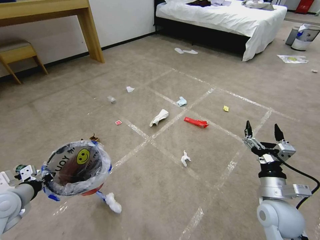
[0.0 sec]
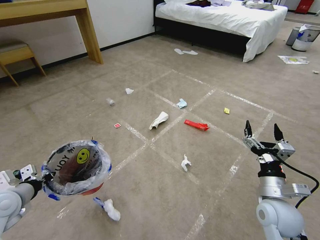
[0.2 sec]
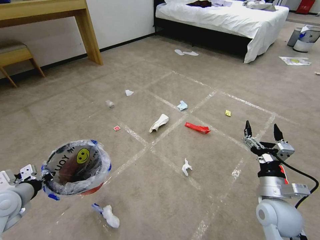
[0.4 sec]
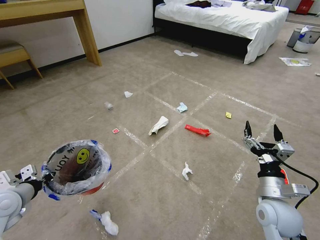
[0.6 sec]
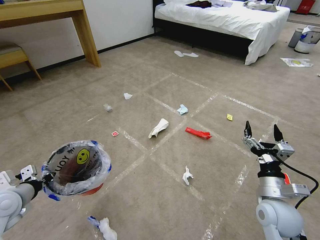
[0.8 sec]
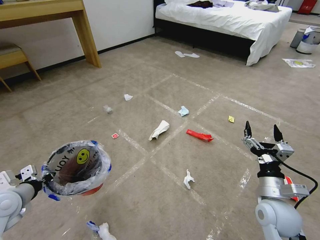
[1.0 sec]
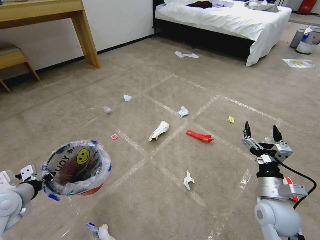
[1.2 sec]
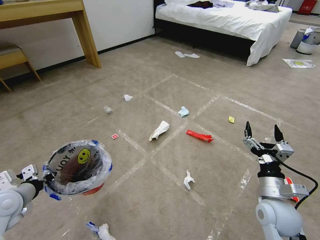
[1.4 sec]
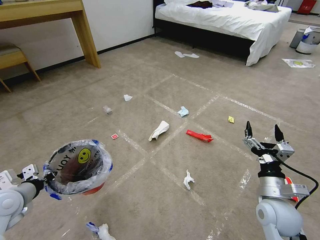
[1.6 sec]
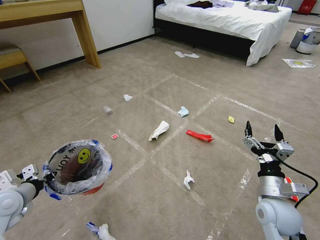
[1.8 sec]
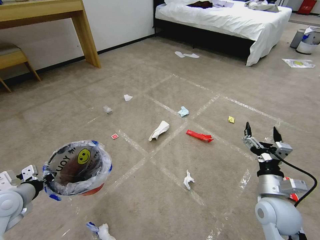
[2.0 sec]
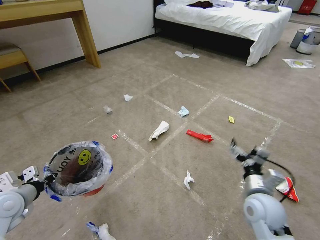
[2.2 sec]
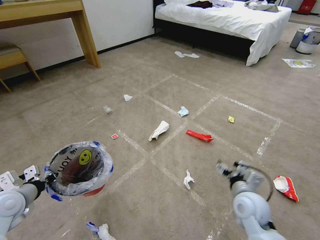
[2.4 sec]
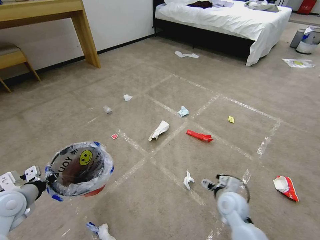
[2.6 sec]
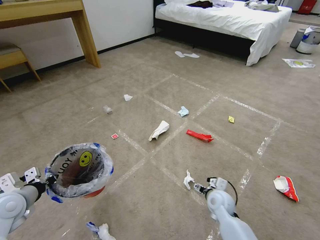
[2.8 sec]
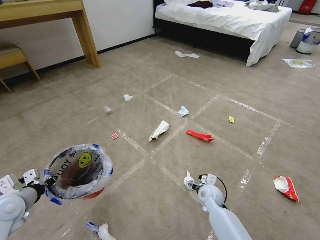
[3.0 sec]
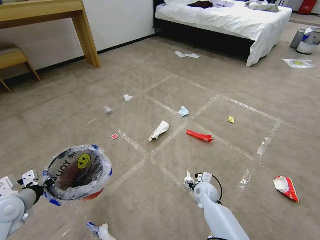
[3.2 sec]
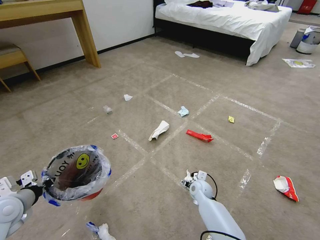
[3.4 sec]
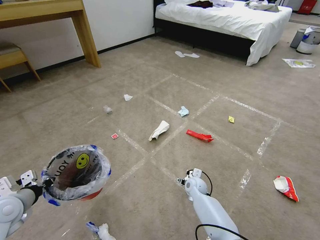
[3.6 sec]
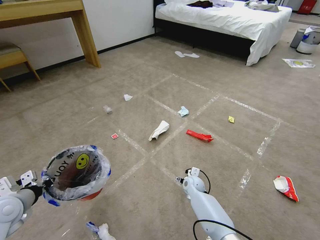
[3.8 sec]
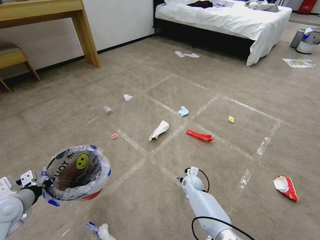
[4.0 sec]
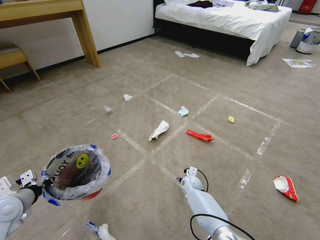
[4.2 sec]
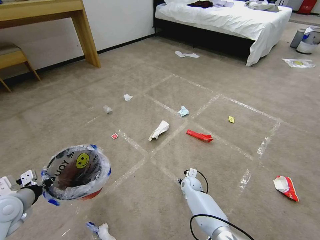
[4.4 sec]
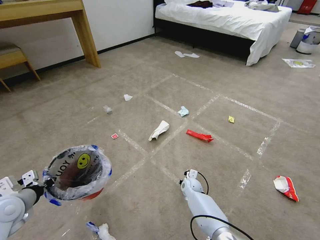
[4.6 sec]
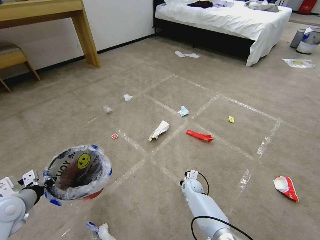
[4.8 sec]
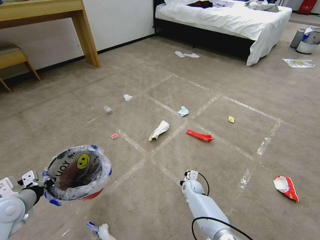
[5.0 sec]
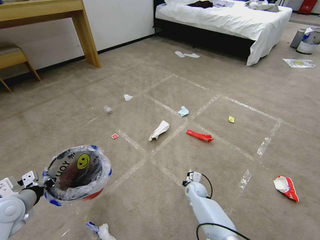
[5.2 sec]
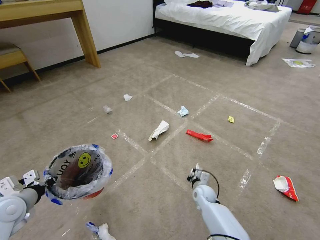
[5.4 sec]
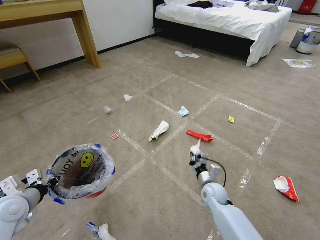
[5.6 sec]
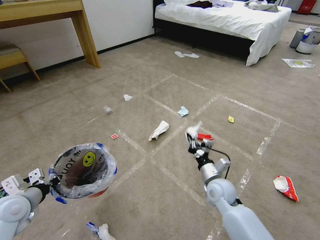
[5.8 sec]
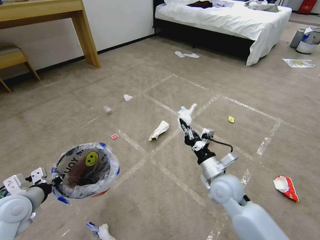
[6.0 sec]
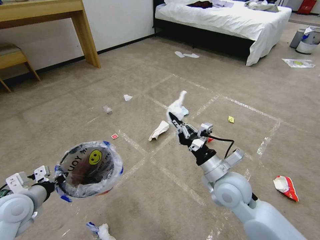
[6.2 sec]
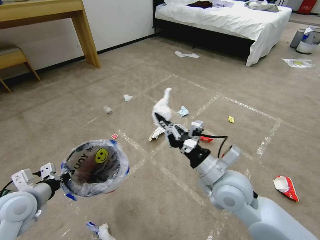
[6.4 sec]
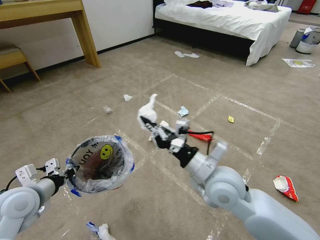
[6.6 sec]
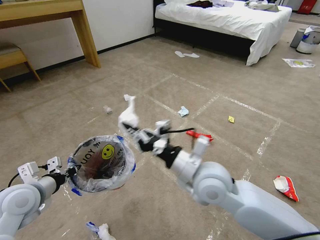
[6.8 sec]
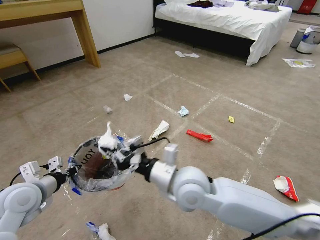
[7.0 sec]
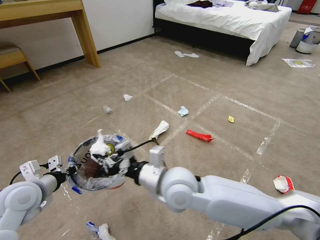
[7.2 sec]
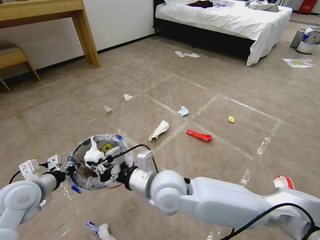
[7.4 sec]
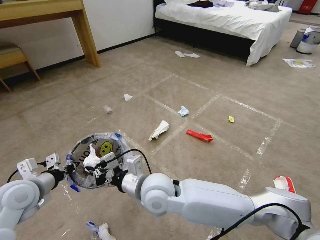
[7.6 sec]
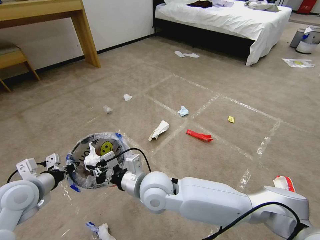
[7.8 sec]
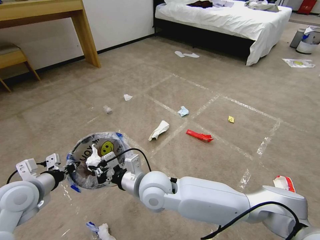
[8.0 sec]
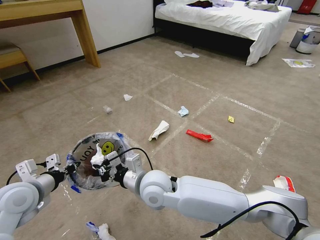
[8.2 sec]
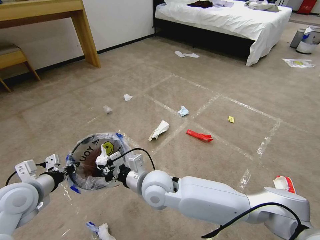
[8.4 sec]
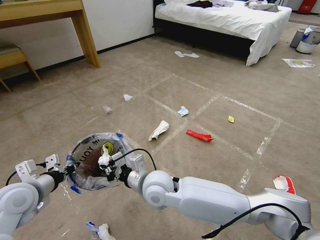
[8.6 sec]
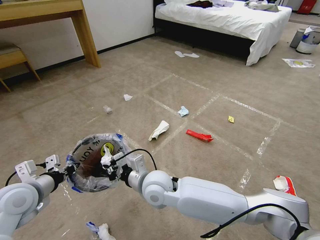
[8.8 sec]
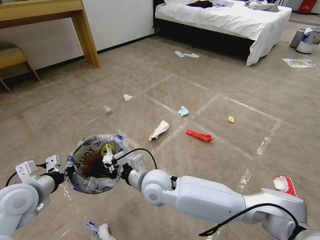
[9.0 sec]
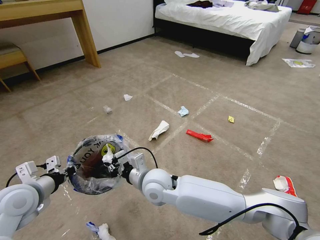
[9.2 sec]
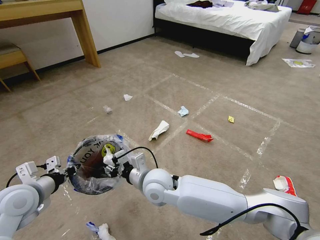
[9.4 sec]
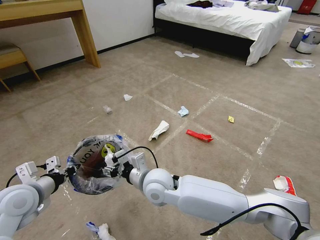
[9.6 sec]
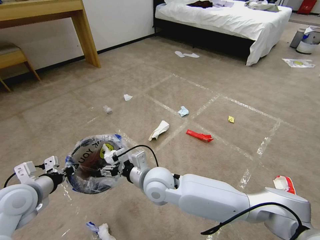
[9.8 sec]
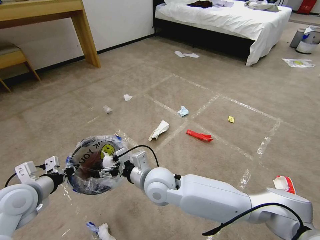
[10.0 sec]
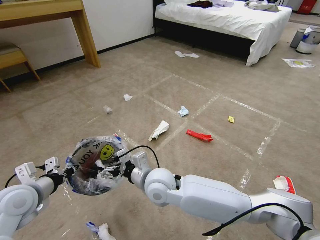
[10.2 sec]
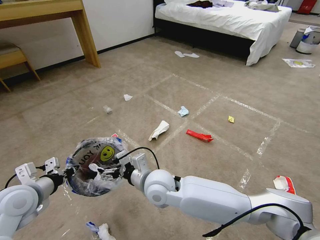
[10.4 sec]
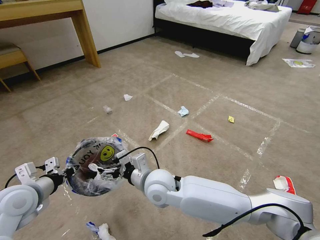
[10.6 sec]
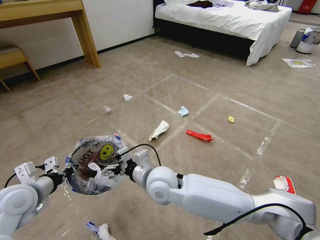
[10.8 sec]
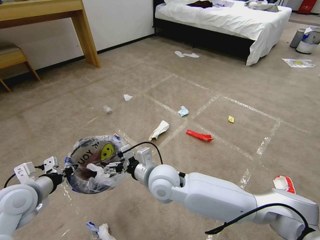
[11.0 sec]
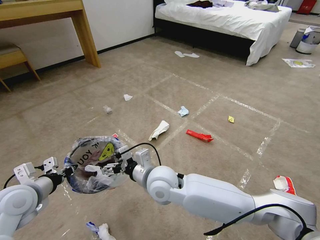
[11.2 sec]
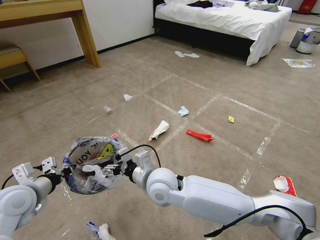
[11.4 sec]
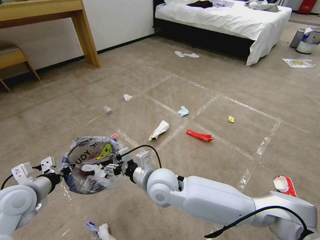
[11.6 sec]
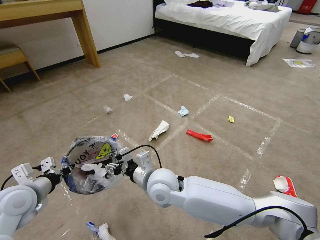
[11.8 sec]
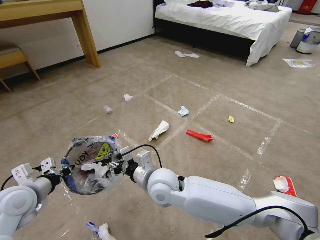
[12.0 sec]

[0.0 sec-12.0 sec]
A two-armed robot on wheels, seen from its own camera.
Task of the whole recording: Pick up the trash bin and place the garbage on the floor into it.
0.0 sec to 1.6 sec: The two grippers keep their place.
1.6 sec to 3.0 sec: The right gripper heads downward, to the left and forward, covering approximately 25 cm.
3.0 sec to 4.4 sec: The right gripper travels downward, forward and to the left by about 15 cm.
4.4 sec to 6.0 sec: The right gripper travels upward and backward by some 25 cm, and closes up.
6.0 sec to 7.6 sec: The left gripper shifts by about 5 cm, while the right gripper travels to the left by approximately 20 cm.
7.6 sec to 9.0 sec: The right gripper changes place by some 5 cm.
9.0 sec to 10.4 sec: The right gripper opens its fingers.
10.4 sec to 12.0 sec: The right gripper closes.

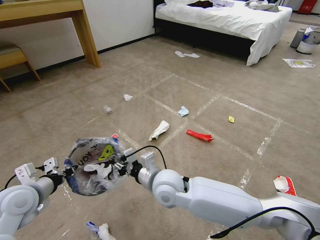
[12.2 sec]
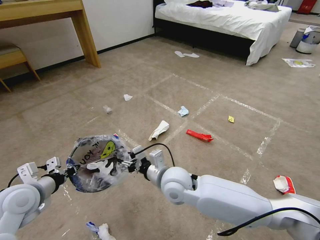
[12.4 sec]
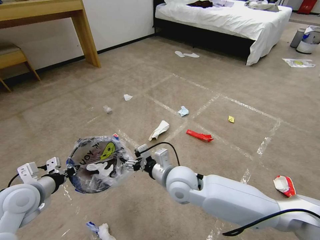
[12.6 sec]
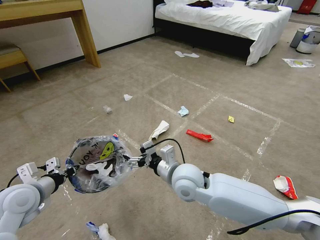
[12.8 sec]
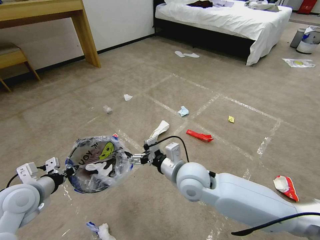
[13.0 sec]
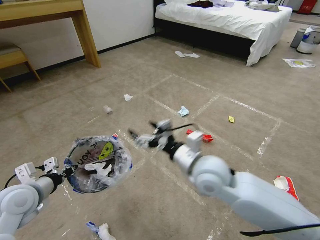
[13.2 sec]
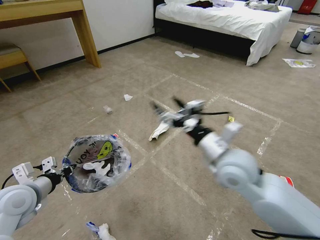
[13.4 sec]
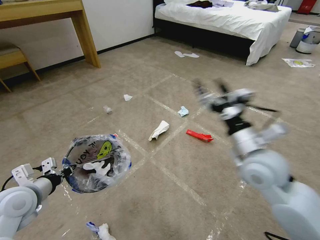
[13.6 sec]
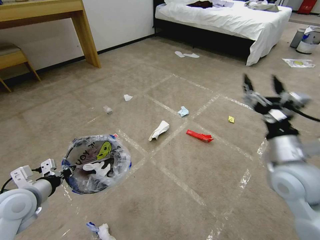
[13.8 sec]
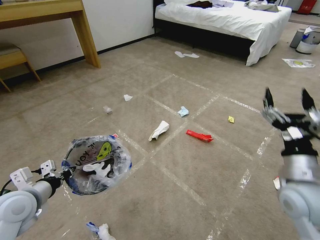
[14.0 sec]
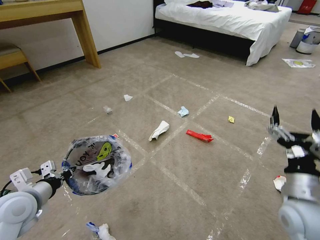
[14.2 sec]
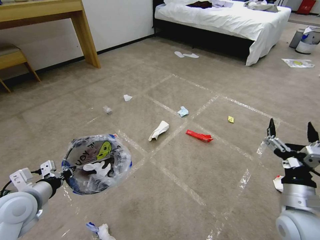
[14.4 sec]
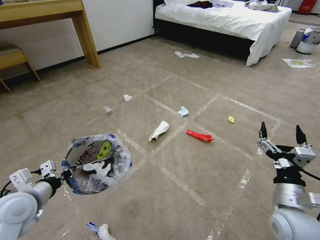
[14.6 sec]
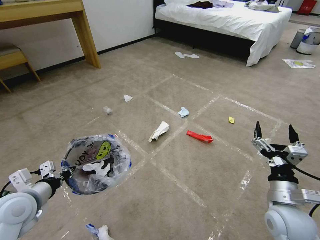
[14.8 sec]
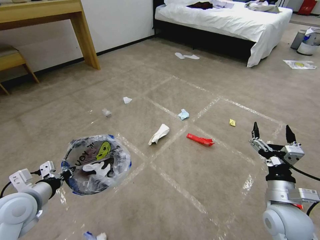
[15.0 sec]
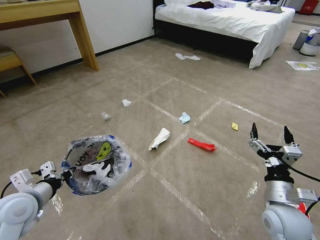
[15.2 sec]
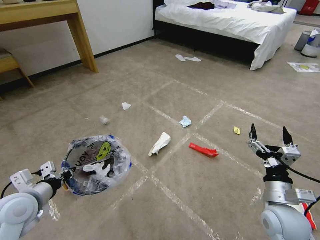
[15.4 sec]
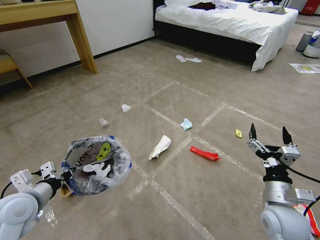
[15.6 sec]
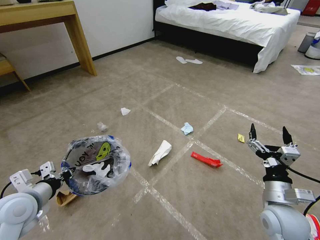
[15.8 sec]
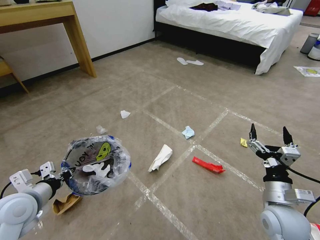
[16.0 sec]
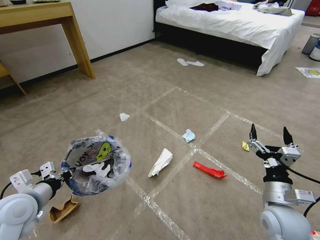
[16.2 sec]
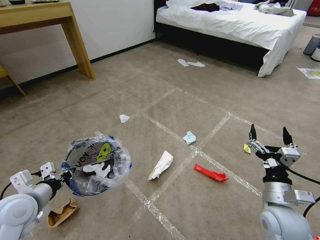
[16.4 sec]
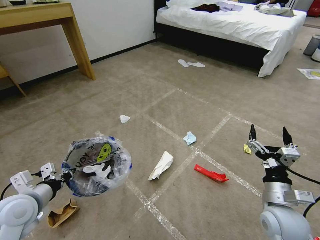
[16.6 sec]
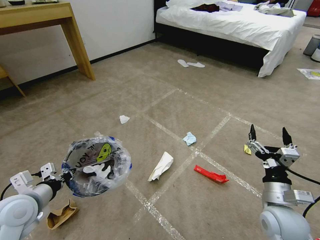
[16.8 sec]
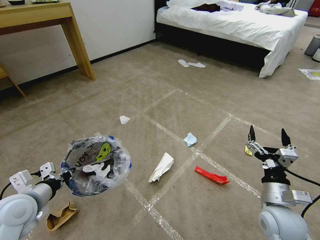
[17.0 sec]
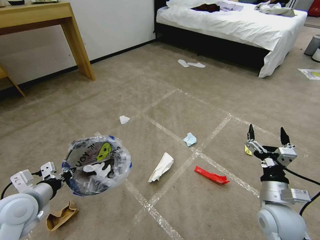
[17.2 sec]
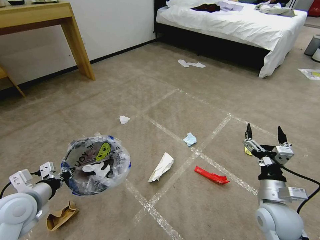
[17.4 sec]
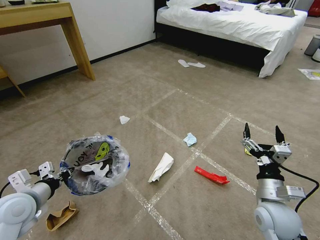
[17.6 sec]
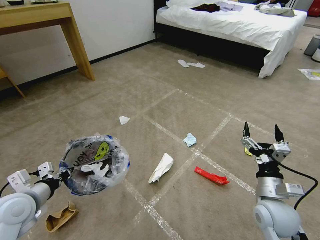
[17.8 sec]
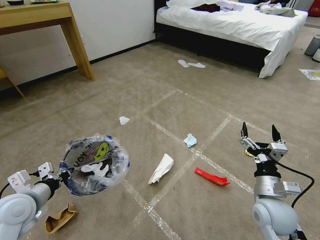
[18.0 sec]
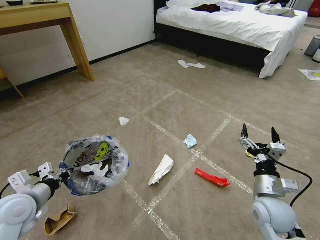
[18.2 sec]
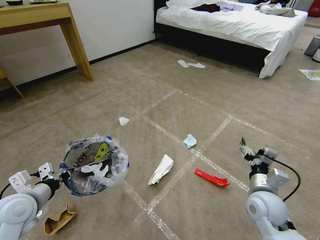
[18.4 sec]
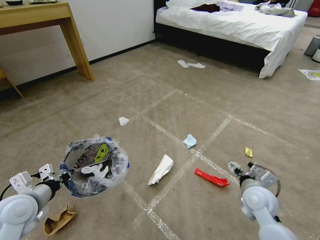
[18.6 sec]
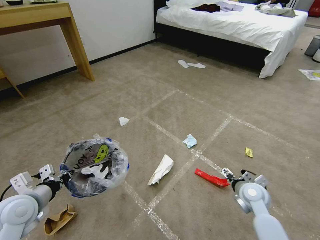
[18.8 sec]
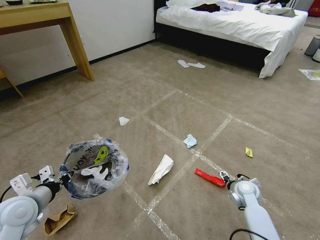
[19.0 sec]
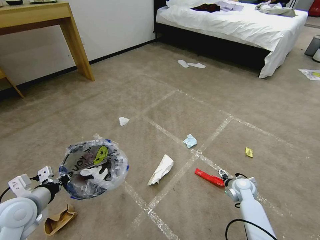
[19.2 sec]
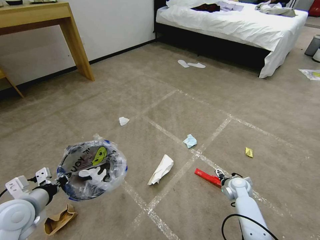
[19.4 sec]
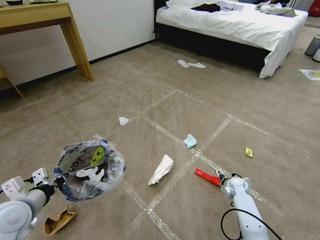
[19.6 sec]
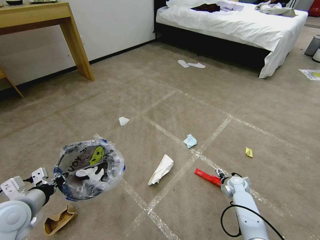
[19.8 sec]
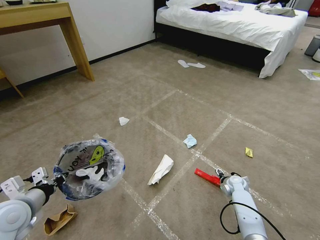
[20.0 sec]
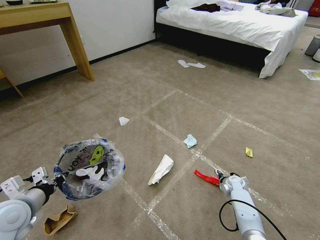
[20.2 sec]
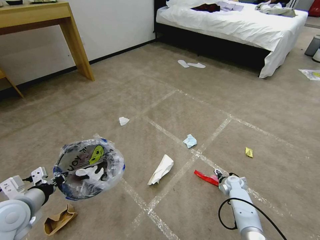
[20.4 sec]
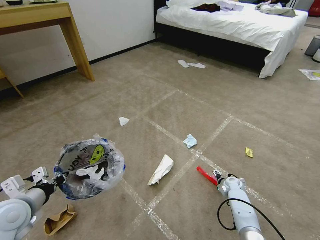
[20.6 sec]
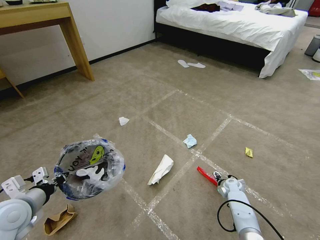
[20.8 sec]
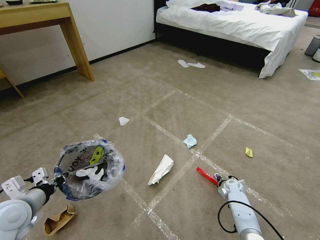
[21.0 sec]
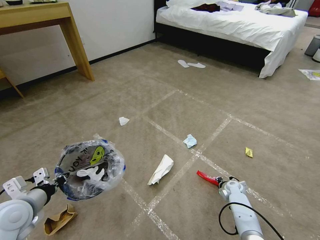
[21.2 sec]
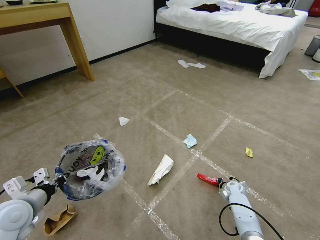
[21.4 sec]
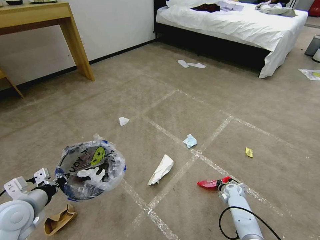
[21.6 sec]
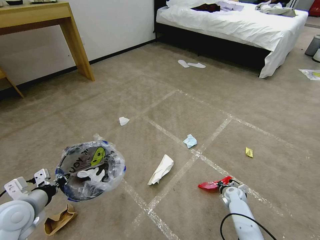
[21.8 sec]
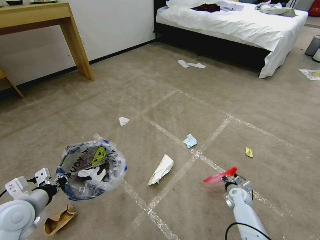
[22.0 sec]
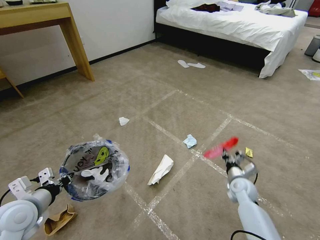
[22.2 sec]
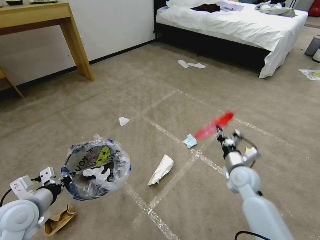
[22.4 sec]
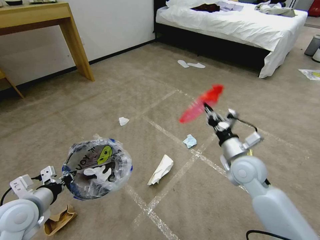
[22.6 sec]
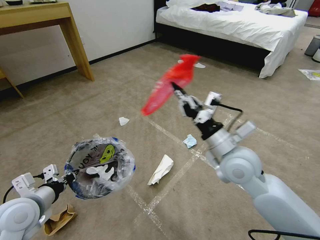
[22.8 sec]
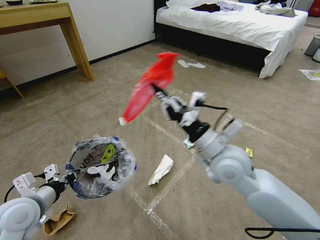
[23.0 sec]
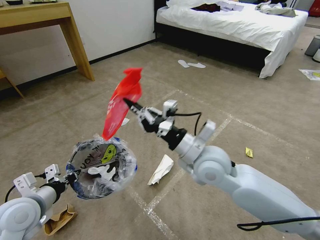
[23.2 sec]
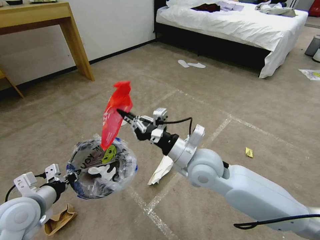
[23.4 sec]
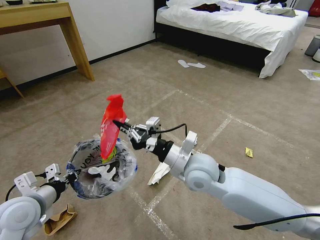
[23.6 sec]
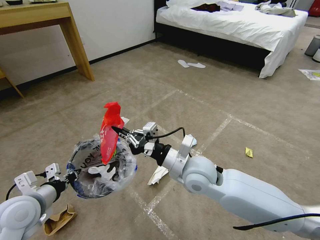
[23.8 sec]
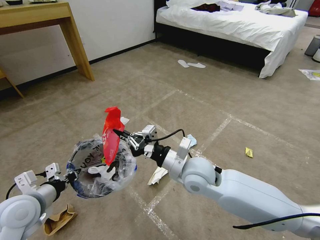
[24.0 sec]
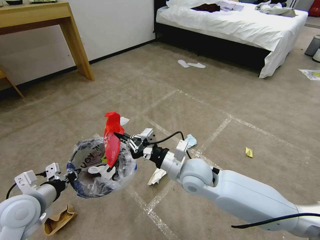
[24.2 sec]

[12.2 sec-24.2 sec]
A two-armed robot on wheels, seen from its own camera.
Task of the whole recording: Pick up the trash bin and place the garbage on the floor into it.
12.2 sec to 13.8 sec: The right gripper shifts approximately 30 cm to the right, and opens up.
13.8 sec to 15.2 sec: The right gripper goes about 15 cm downward and backward.
16.6 sec to 18.2 sec: There are only small adjustments of the grippers.
18.2 sec to 19.8 sec: The right gripper shifts some 25 cm downward and forward.
19.8 sec to 21.2 sec: The right gripper closes its fingers.
21.2 sec to 22.6 sec: The right gripper goes roughly 30 cm upward, and closes up.
22.6 sec to 24.2 sec: The right gripper is displaced to the left by approximately 15 cm.
